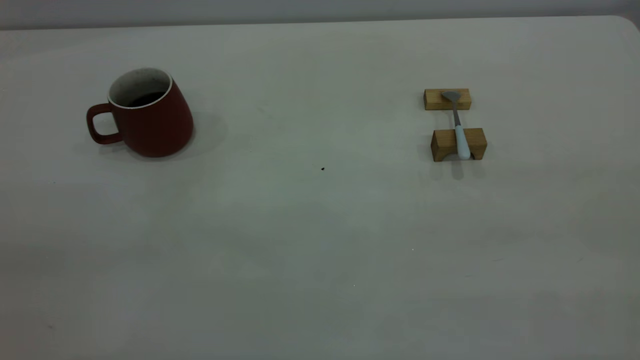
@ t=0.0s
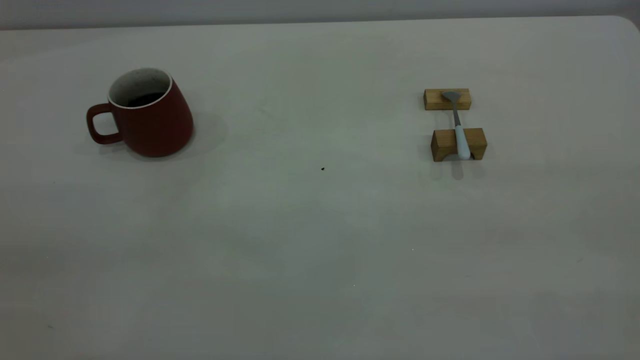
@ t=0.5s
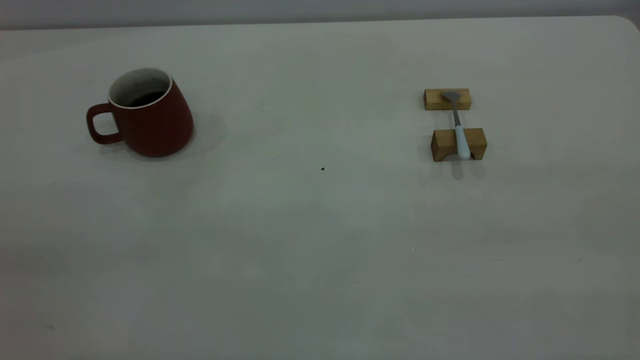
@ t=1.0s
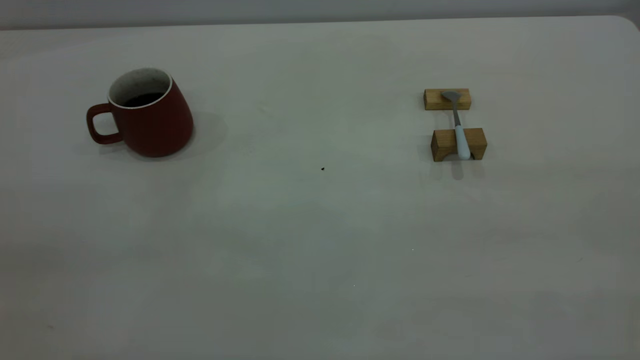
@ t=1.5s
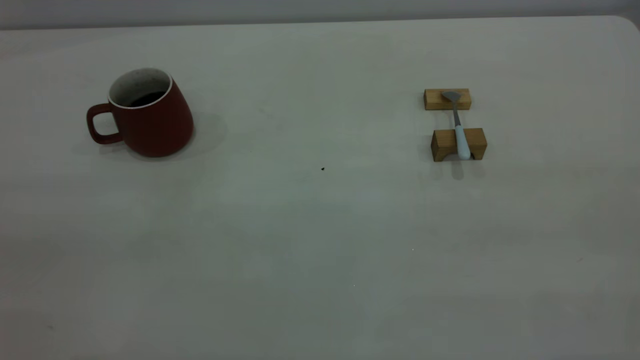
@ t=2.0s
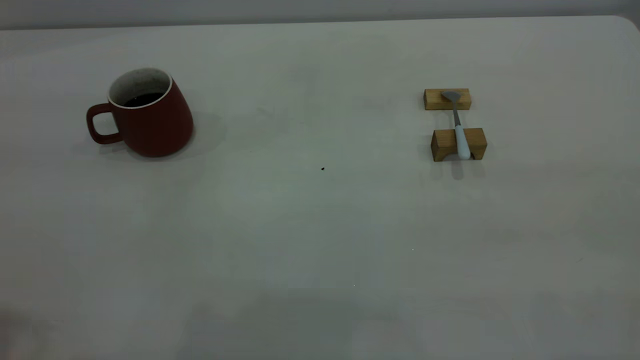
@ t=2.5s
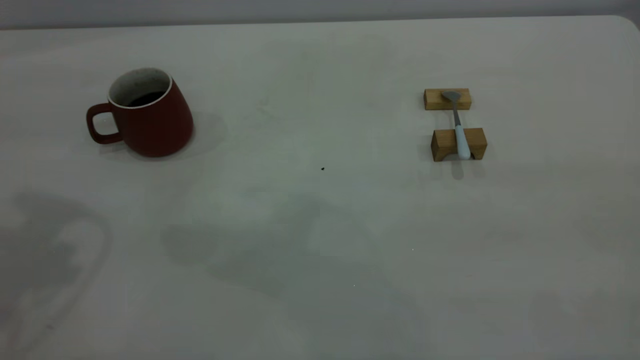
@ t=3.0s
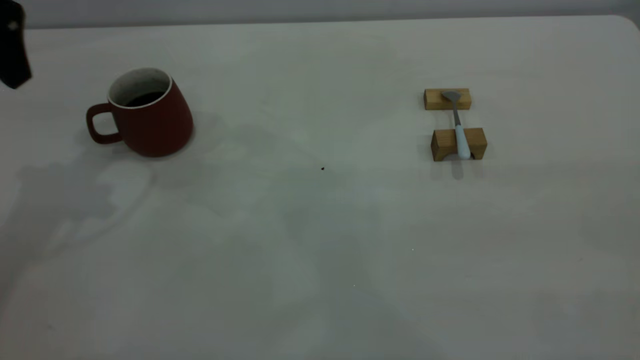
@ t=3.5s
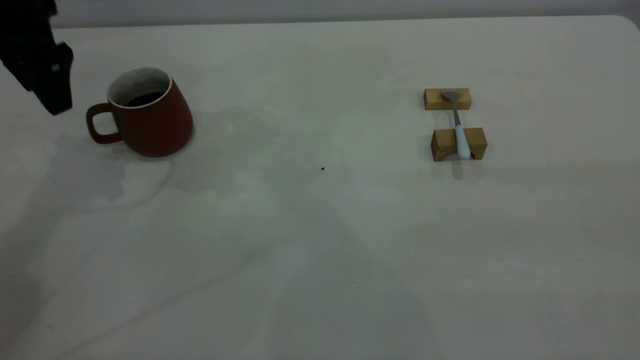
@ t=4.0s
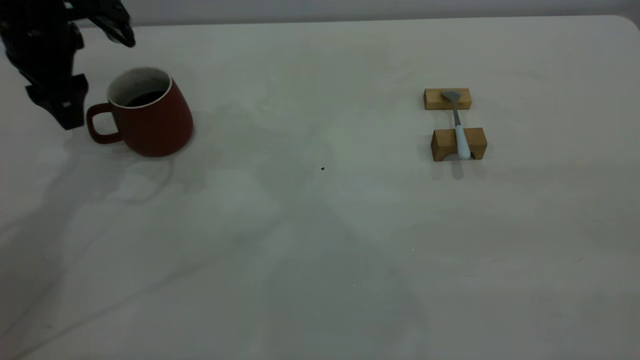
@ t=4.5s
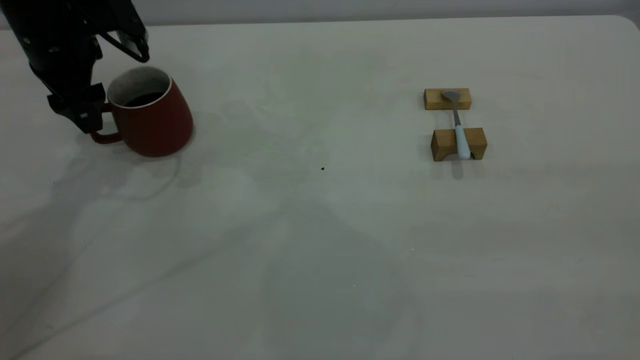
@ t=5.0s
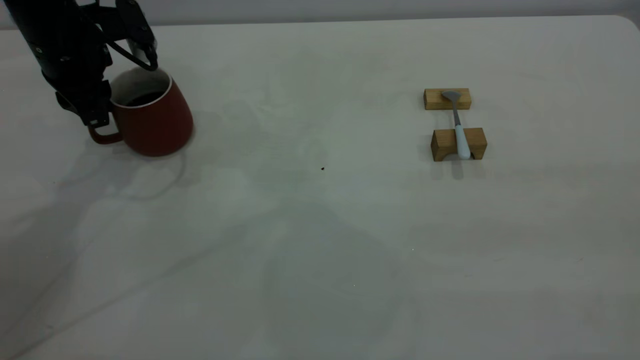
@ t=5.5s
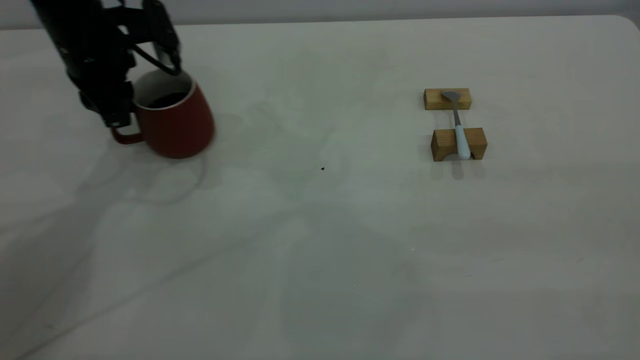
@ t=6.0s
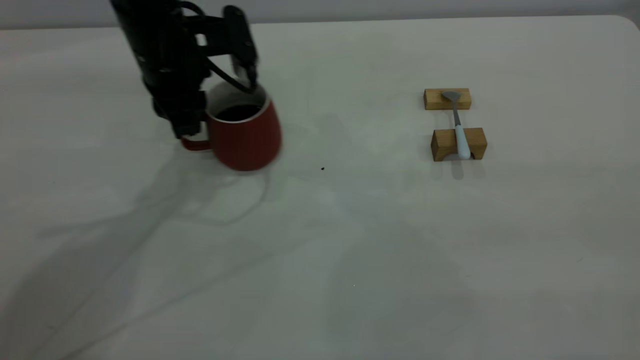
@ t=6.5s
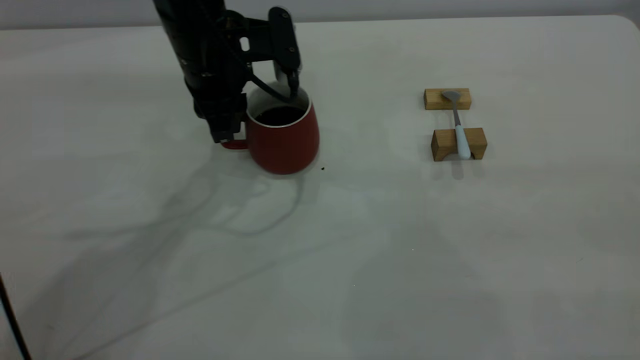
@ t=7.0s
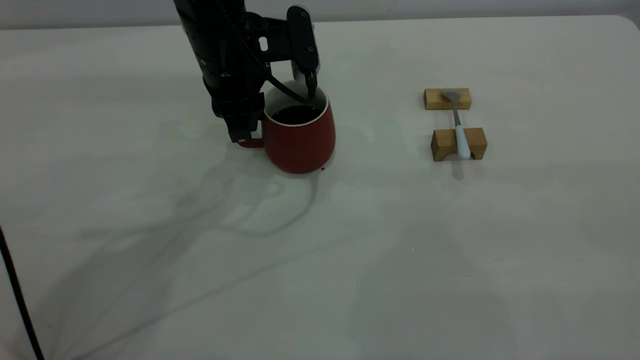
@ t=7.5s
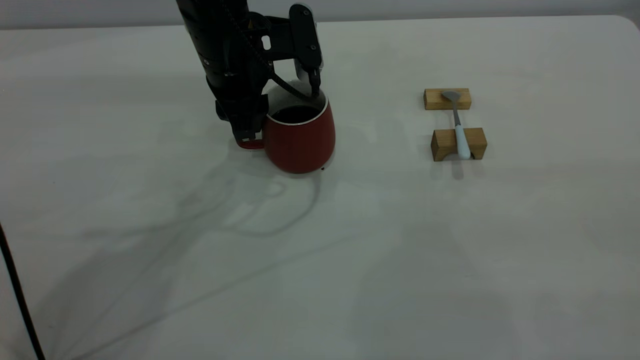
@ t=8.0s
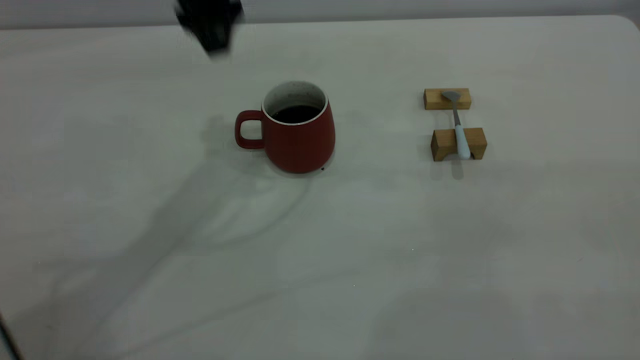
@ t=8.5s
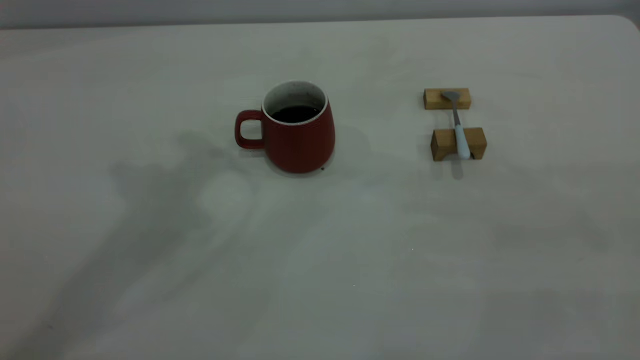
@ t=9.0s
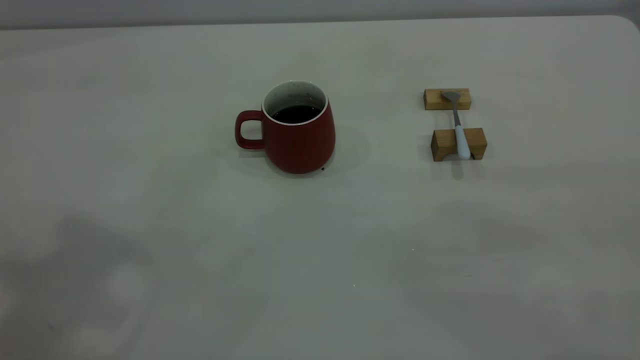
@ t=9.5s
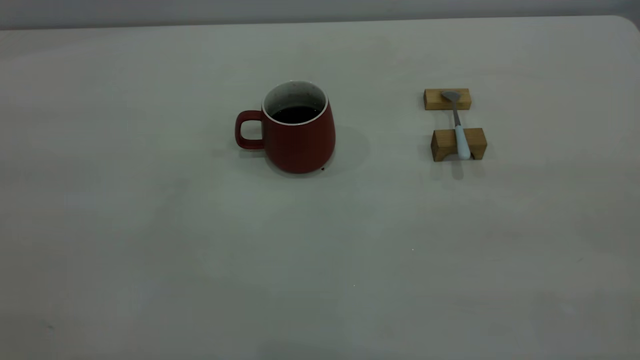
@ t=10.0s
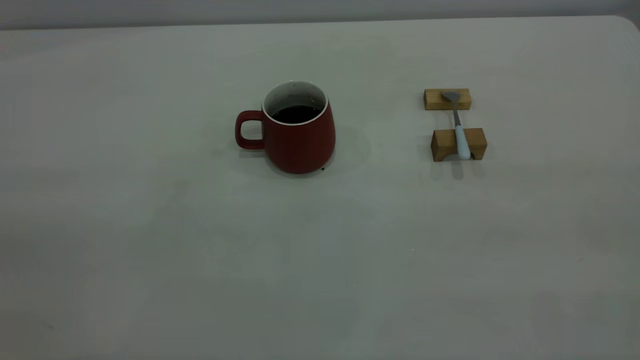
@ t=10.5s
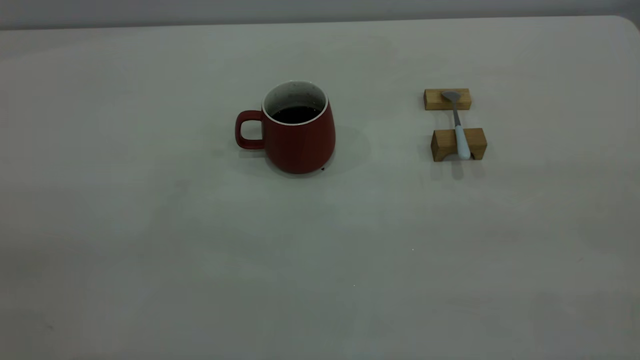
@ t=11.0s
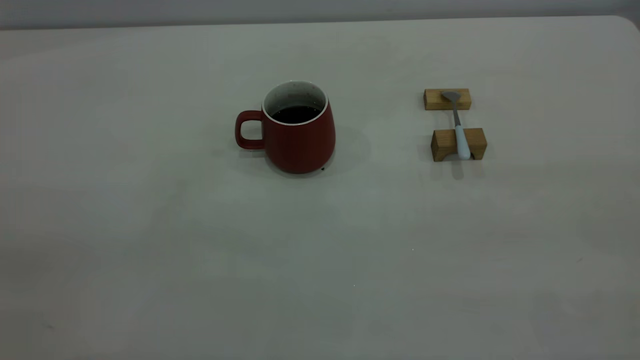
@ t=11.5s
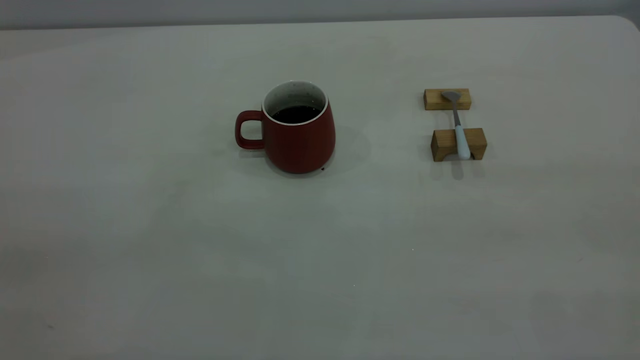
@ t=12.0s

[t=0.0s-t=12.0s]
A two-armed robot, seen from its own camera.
Step, t=0.0s to t=8.0s: Move the cup with coffee to the center of view.
t=2.0s to t=4.0s: The left gripper moves forward and downward, roughly 40 cm, and opens.
t=4.0s to t=6.0s: The left gripper moves downward and to the right, some 10 cm, and closes its fingers.
t=6.0s to t=8.0s: The left gripper shifts about 15 cm to the right, and opens its fingers.
t=8.0s to t=10.0s: The left gripper is displaced backward, upward and to the left by roughly 50 cm, and opens, then closes again.

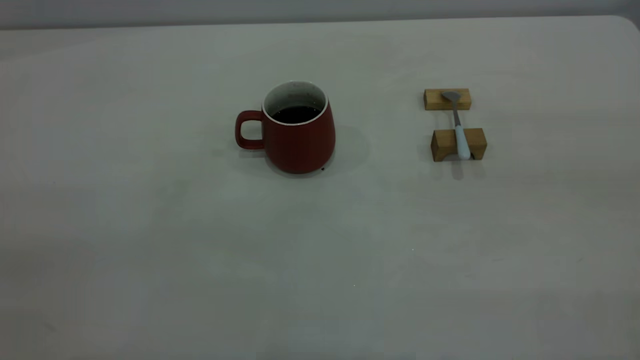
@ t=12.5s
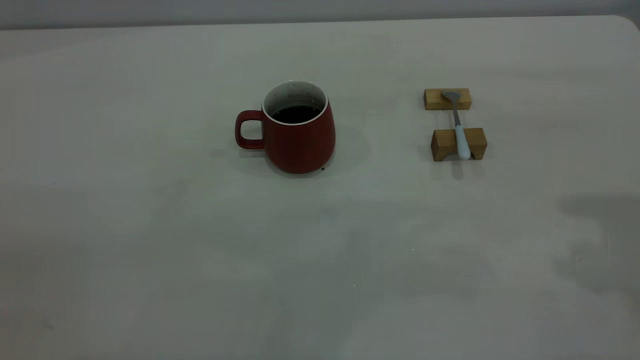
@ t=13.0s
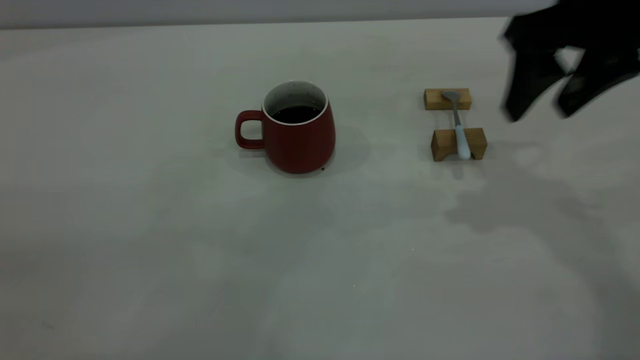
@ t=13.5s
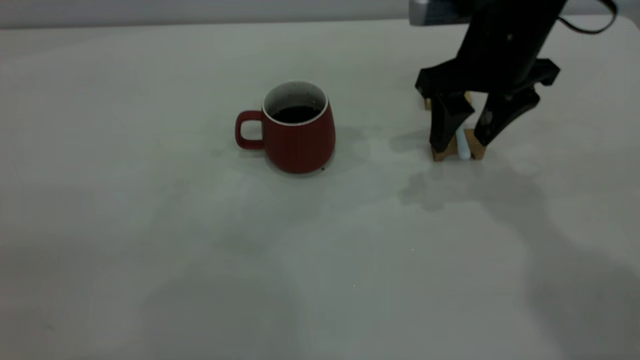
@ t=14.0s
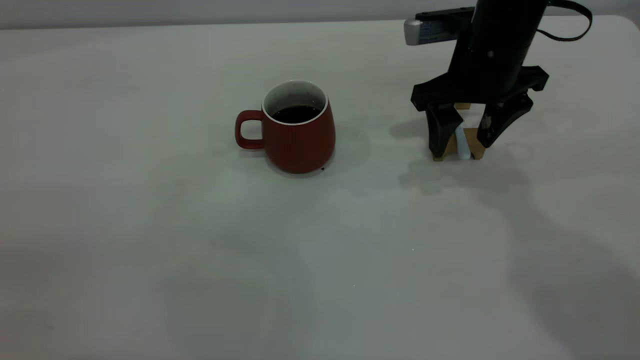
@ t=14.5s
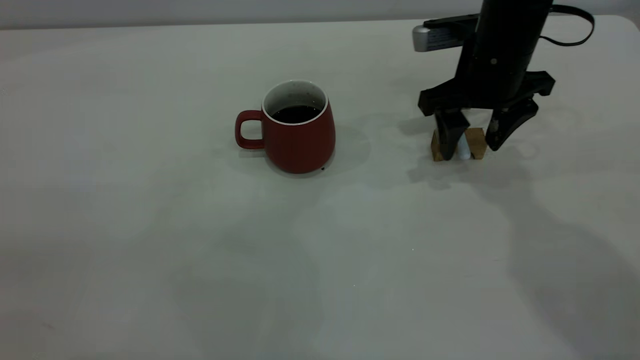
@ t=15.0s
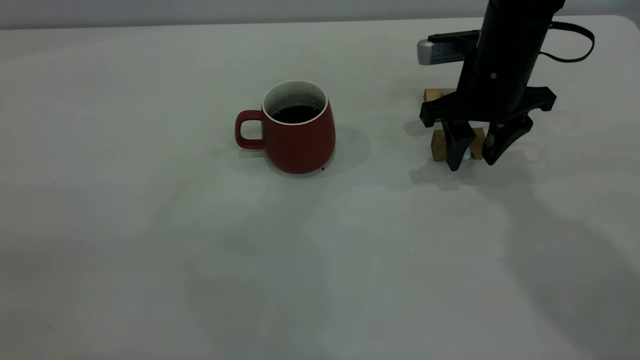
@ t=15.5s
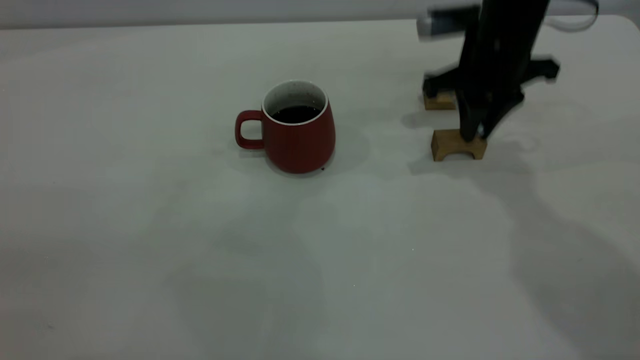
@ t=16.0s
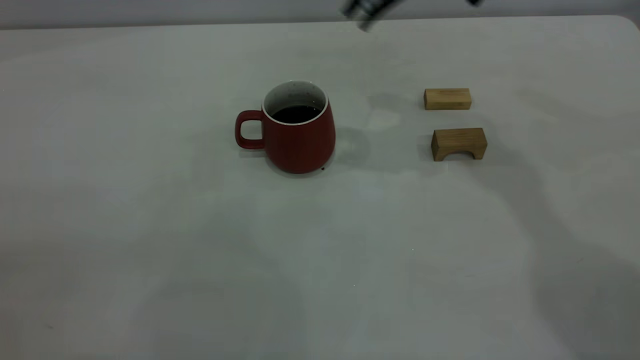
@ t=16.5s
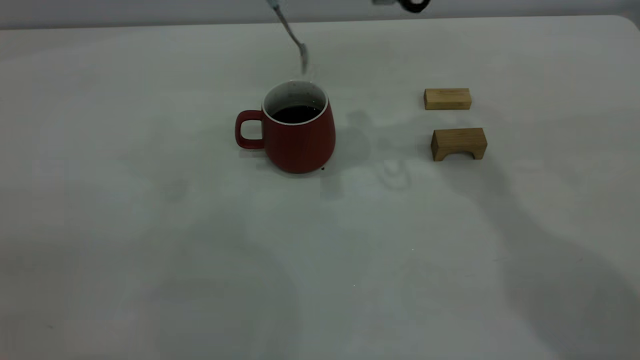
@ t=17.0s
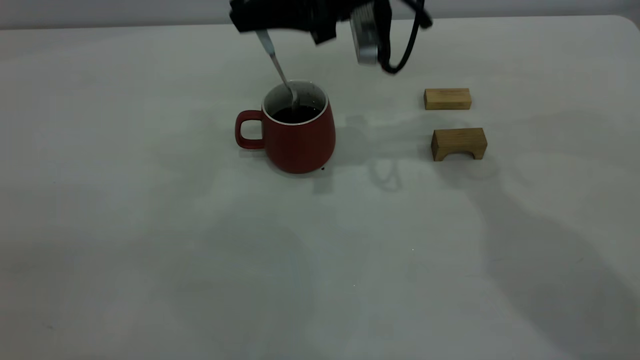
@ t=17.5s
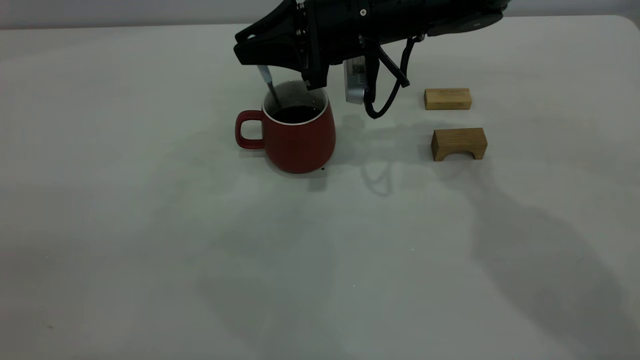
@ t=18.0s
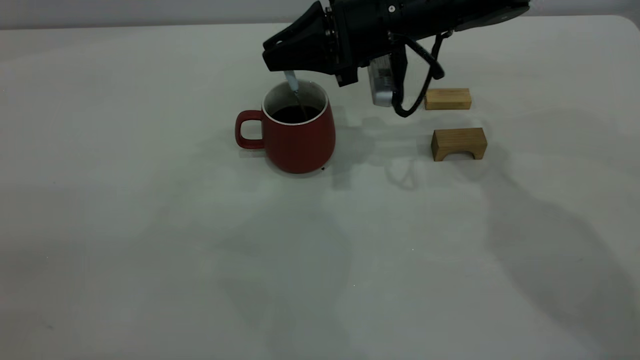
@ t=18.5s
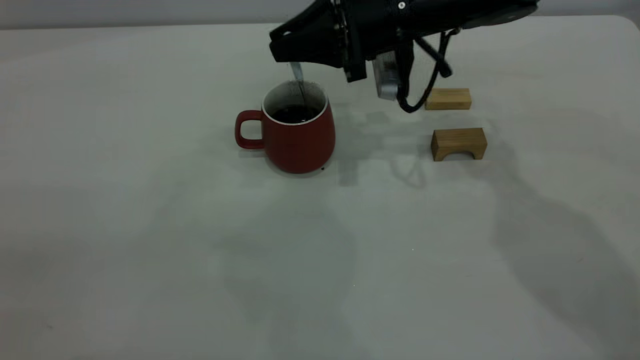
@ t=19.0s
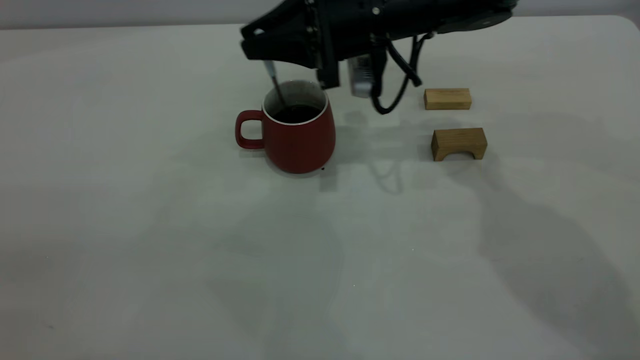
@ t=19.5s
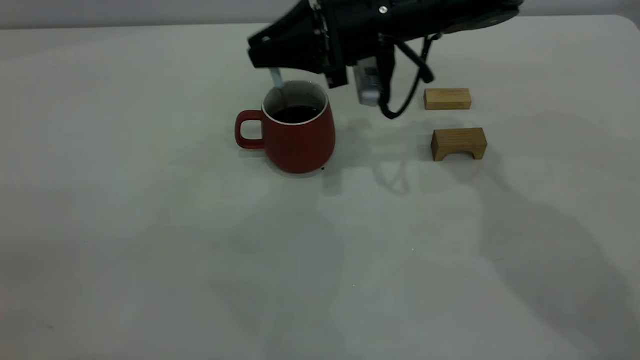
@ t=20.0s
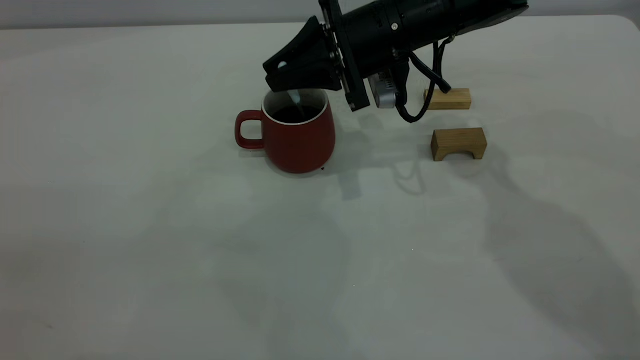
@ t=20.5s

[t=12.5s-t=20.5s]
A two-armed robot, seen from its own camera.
Step, t=12.5s to t=16.0s: Pick up the spoon.
t=12.5s to t=14.5s: The right gripper goes about 40 cm forward, downward and to the left, and opens up.
t=14.5s to t=16.5s: The right gripper shifts some 15 cm upward, and closes its fingers.
t=16.5s to t=18.5s: The right gripper goes approximately 15 cm downward.
t=18.5s to t=20.5s: The grippers make only small movements.
